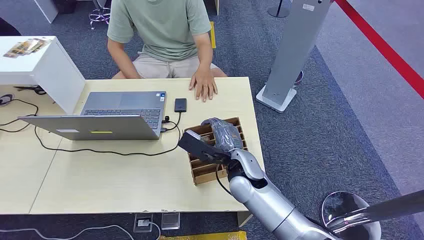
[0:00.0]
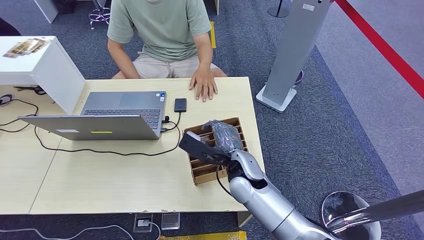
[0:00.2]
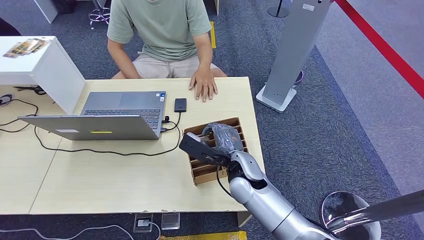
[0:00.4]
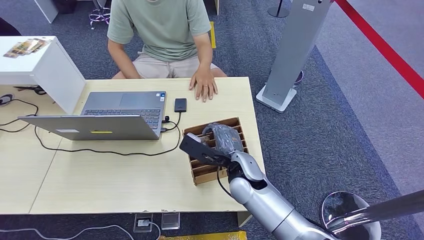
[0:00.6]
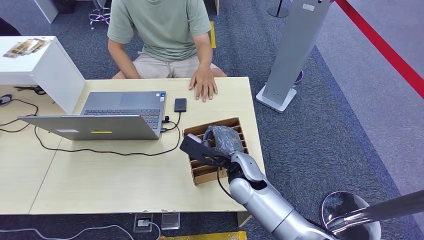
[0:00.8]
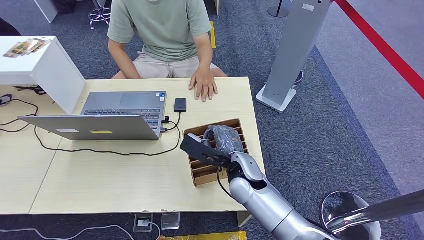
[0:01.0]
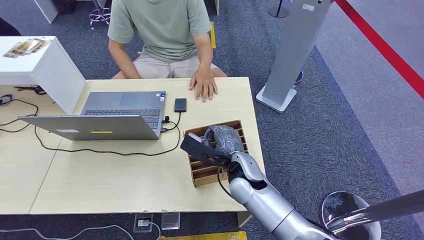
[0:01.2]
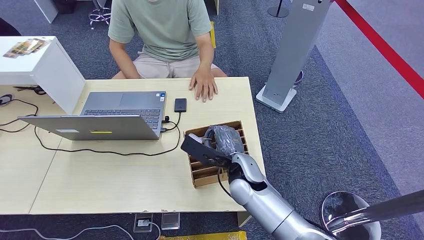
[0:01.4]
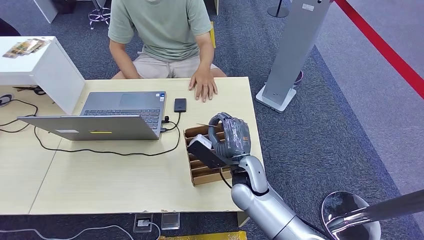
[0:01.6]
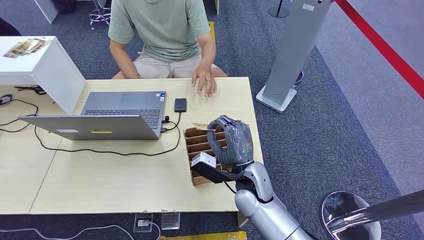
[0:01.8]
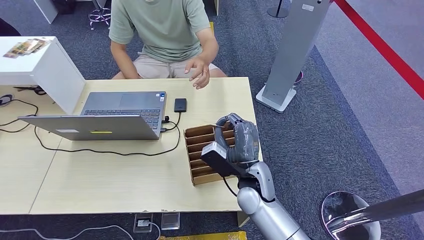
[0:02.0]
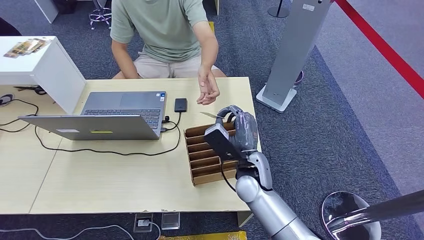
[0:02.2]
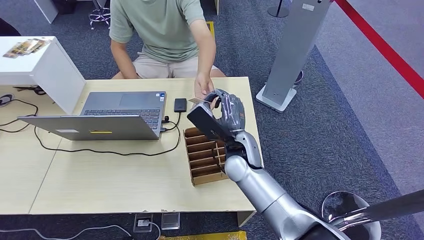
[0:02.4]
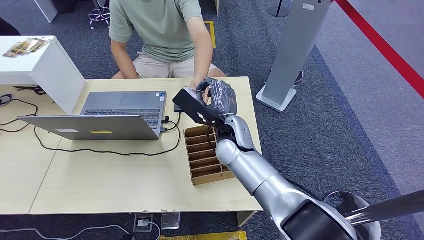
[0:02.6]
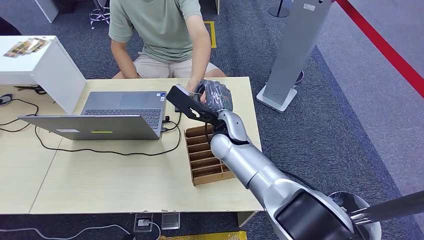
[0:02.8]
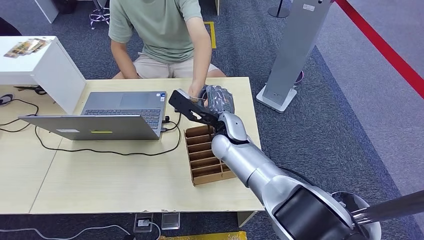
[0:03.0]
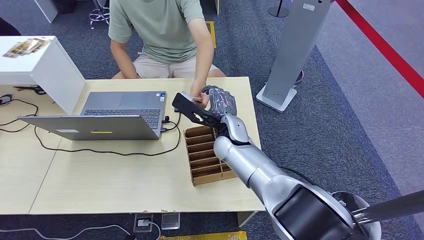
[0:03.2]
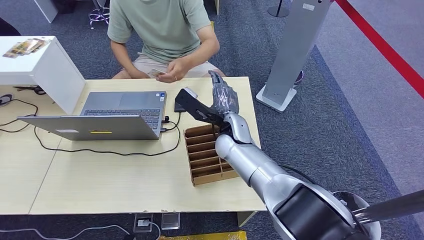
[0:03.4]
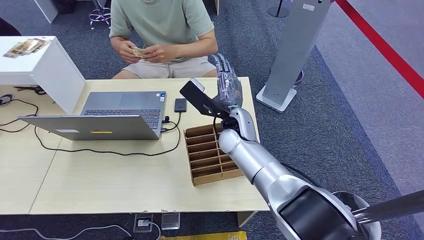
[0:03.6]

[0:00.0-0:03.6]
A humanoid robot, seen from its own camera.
Step, 0:00.0 to 0:01.8: Pick up the room card from the card holder.
Step, 0:02.4 to 0:03.6: Hand the room card to the target.
0:01.8 to 0:03.6: The right hand goes some 15 cm forward and upward.
